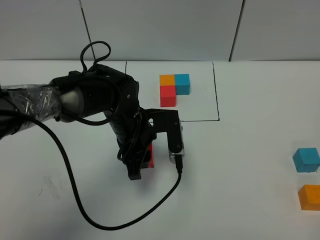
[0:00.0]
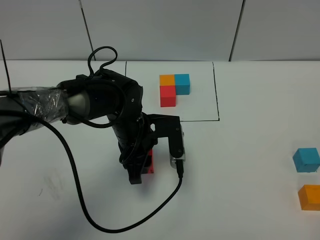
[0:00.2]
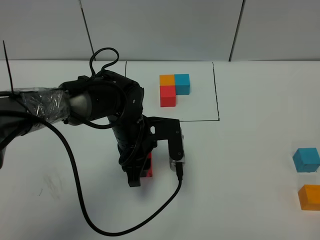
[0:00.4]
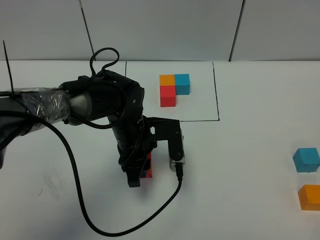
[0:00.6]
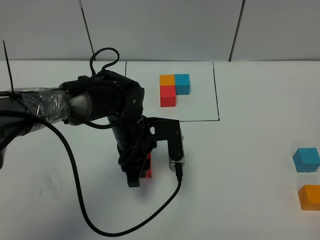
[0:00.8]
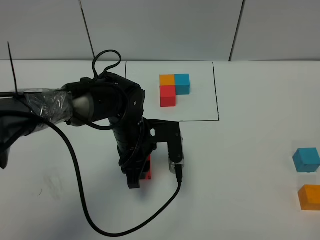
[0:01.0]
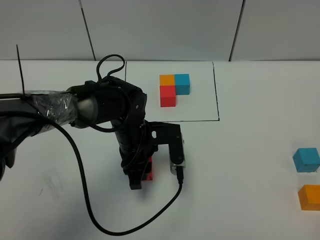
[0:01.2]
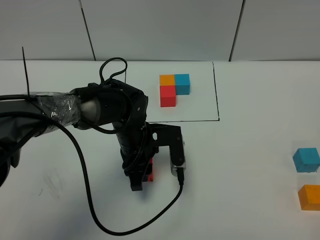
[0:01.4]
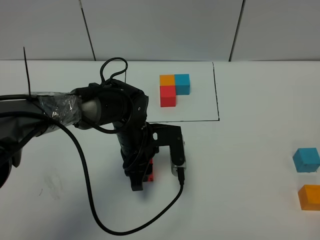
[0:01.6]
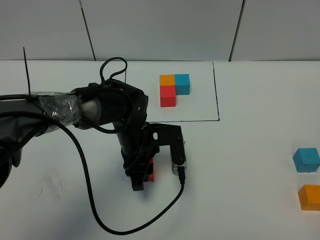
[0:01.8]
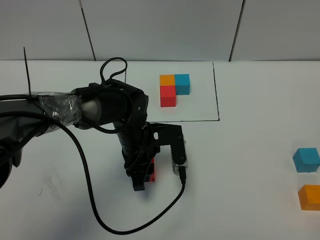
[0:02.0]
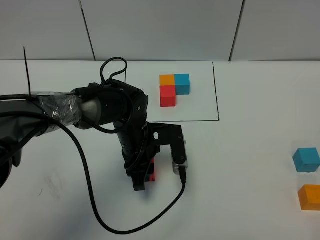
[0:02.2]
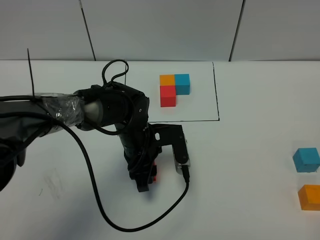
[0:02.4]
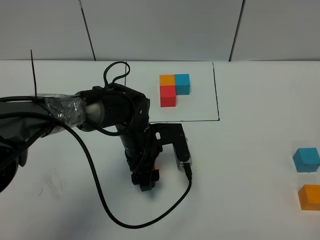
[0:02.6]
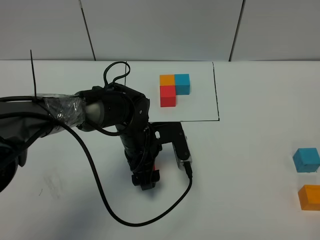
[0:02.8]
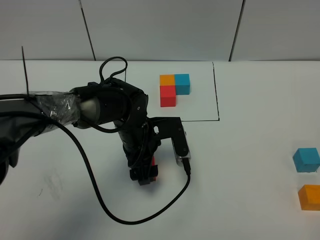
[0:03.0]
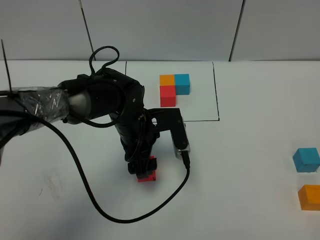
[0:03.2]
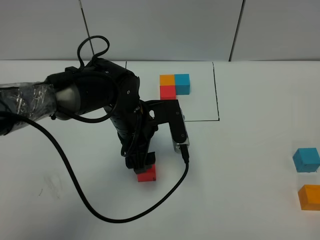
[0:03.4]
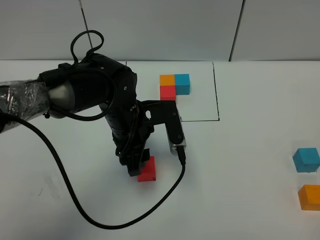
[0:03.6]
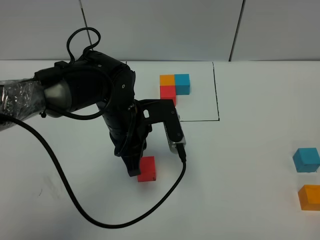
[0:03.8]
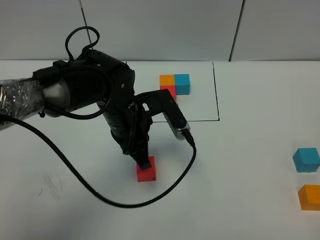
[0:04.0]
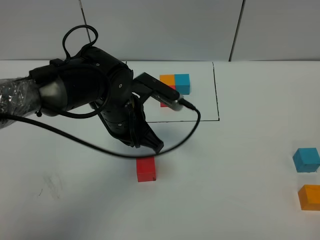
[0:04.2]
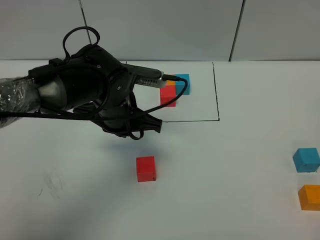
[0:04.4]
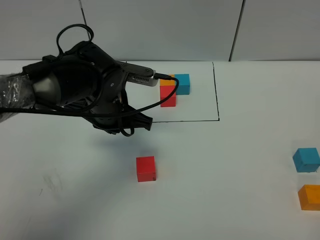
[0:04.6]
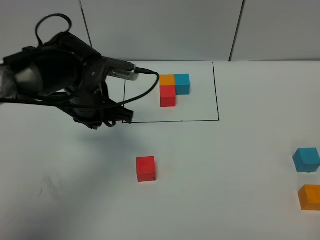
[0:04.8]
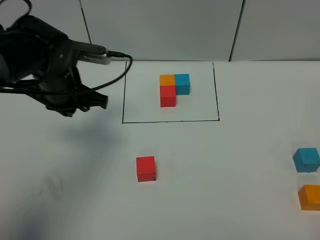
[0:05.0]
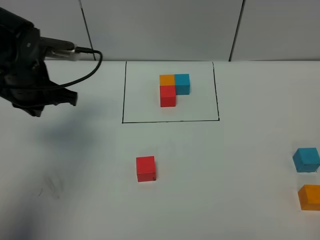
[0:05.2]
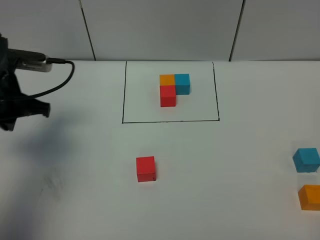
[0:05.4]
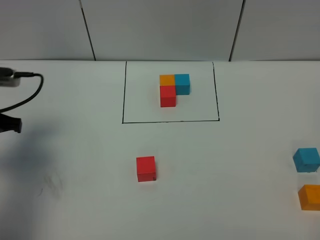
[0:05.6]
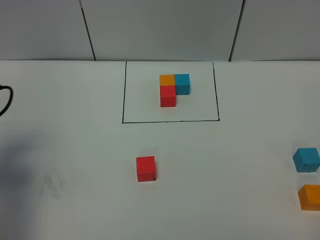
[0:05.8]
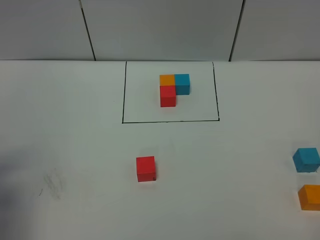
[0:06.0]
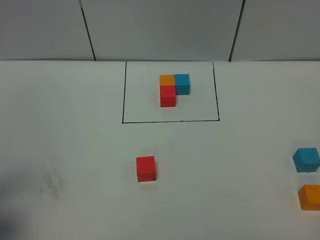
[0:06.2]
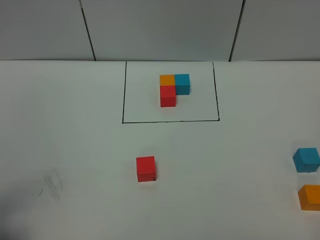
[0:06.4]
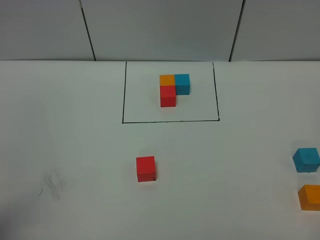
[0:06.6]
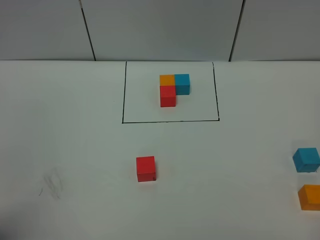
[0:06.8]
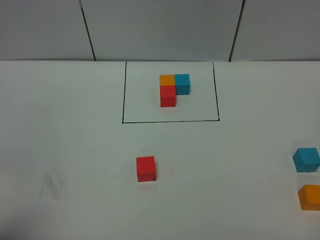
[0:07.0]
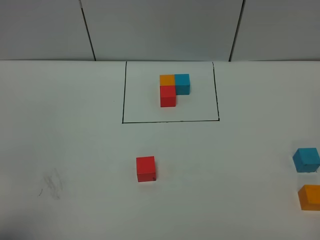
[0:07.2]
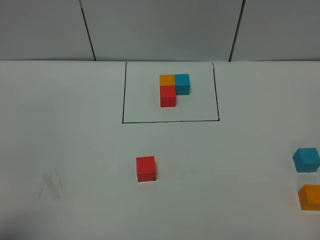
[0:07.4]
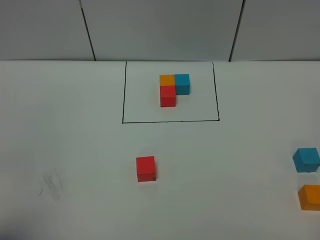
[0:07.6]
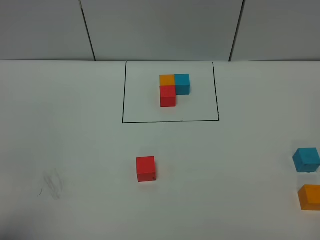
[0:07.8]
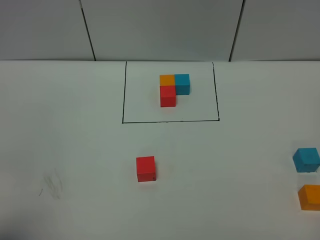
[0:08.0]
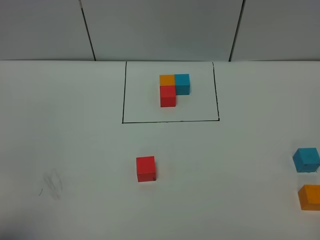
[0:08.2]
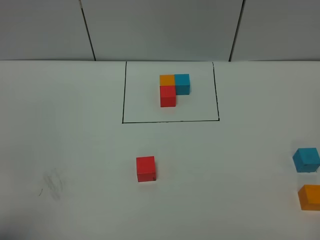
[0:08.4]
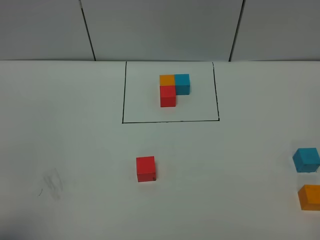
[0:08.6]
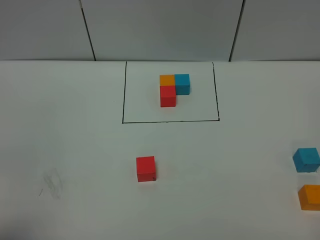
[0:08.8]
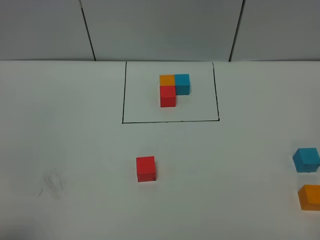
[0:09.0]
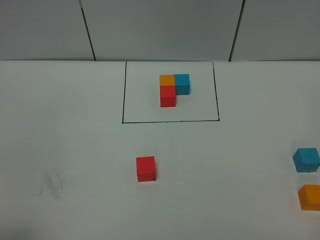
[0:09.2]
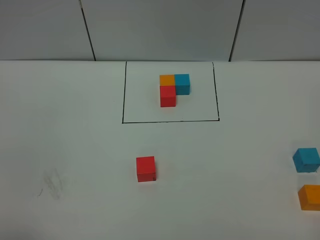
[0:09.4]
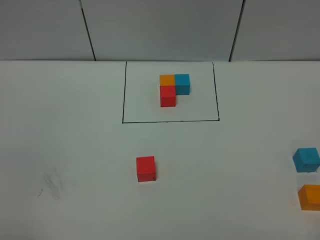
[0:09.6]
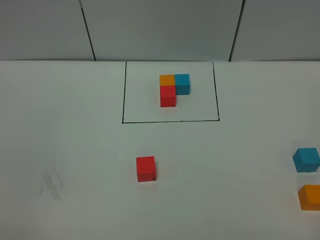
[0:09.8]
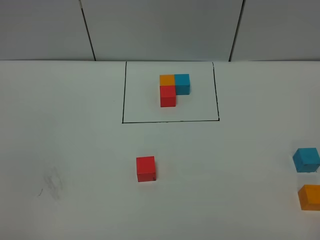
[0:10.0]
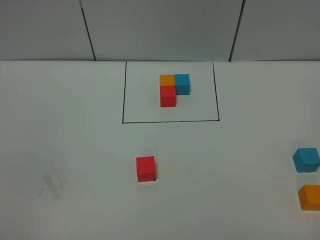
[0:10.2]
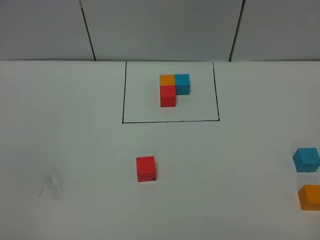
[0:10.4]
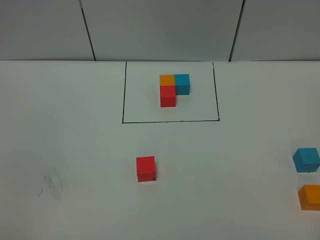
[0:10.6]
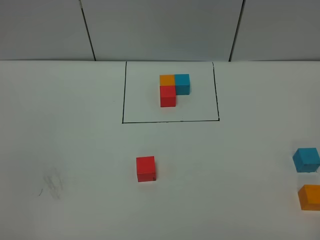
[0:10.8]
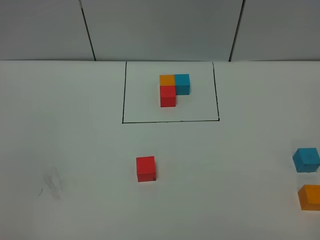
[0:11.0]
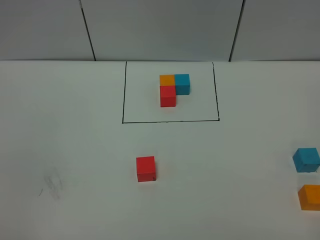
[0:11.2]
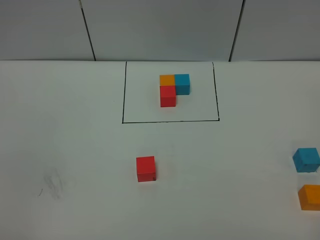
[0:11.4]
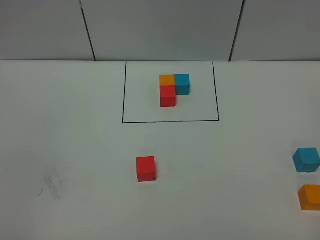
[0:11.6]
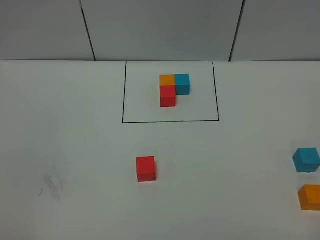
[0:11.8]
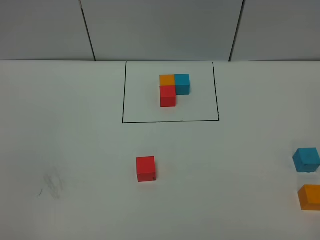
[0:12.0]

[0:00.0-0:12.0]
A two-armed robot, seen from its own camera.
Task of the whole recording: According to the building block template in front, assemble the scattered blocks together.
Step, 0:00.0 to 0:02.8: Put the red cube in the center of the table.
0:00.0 to 0:01.6: The grippers make only small movements.
0:01.6 to 0:03.0: The left gripper opens up.
0:03.0 to 0:04.4: The left gripper is displaced upward by approximately 5 cm, and closes up.
0:04.4 to 0:06.0: The left gripper travels to the left and backward by some 30 cm.
0:06.0 to 0:07.6: The left gripper shifts roughly 15 cm backward.
0:10.4 to 0:12.0: Both grippers stay put.

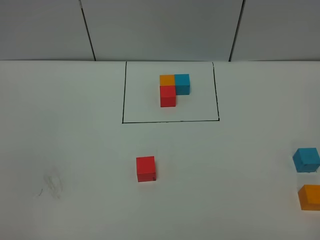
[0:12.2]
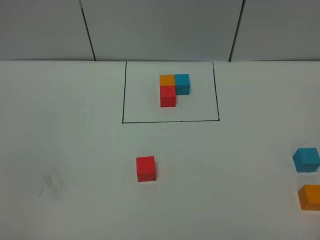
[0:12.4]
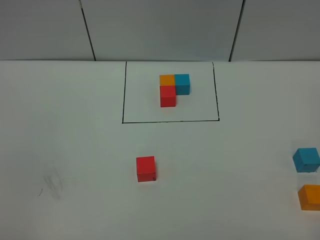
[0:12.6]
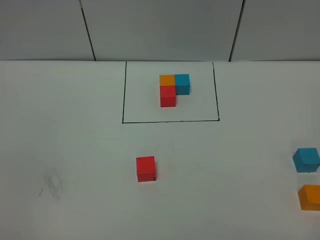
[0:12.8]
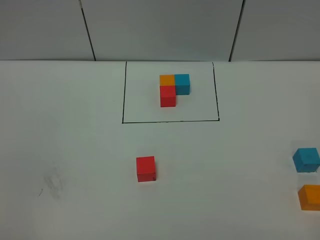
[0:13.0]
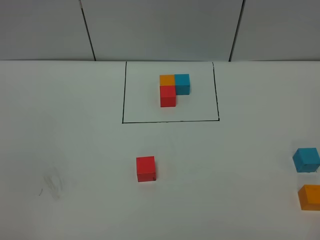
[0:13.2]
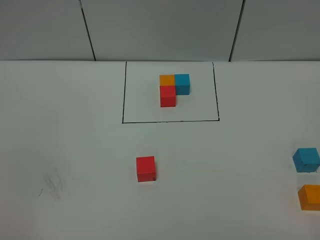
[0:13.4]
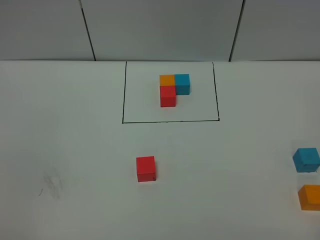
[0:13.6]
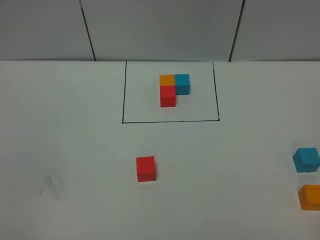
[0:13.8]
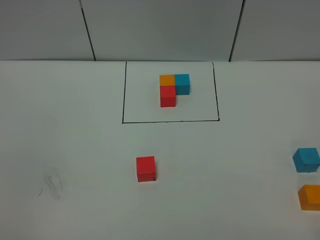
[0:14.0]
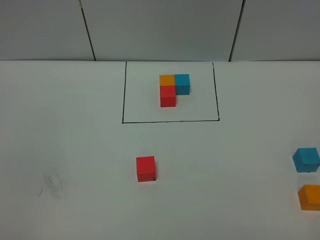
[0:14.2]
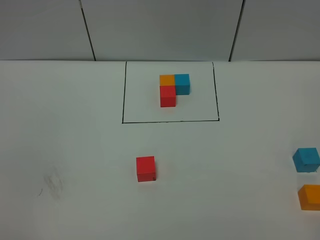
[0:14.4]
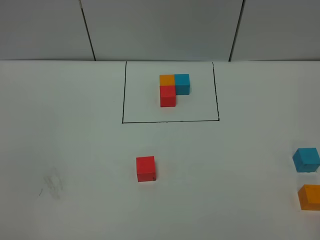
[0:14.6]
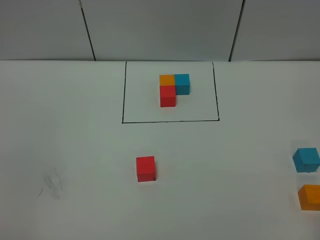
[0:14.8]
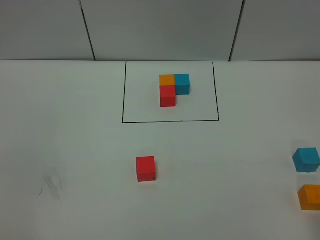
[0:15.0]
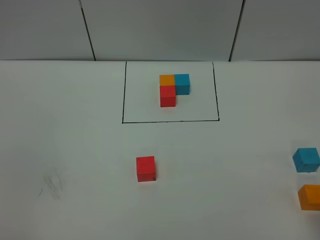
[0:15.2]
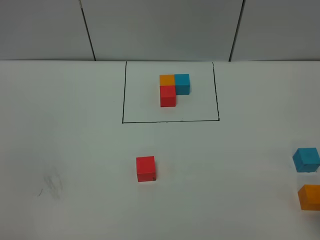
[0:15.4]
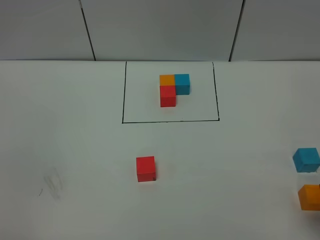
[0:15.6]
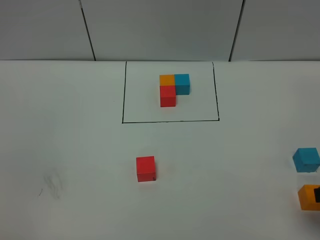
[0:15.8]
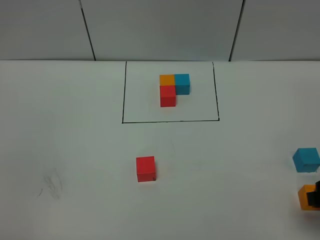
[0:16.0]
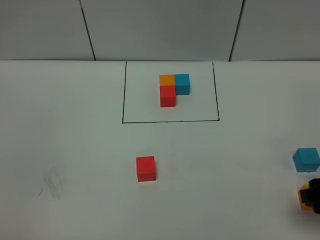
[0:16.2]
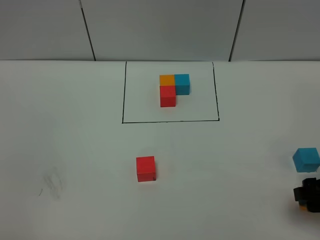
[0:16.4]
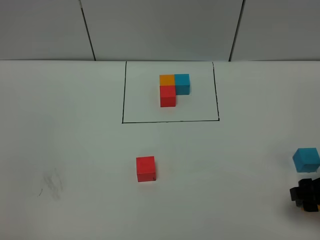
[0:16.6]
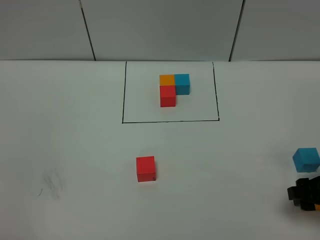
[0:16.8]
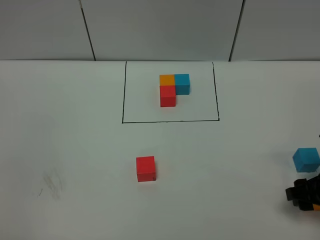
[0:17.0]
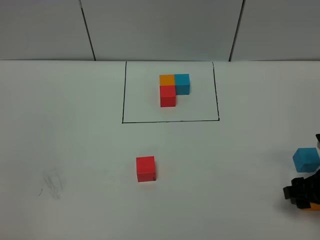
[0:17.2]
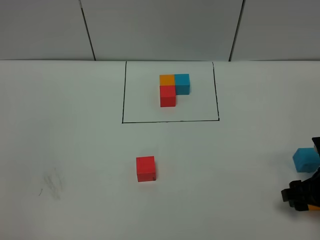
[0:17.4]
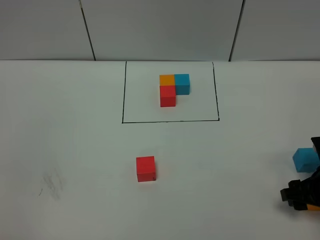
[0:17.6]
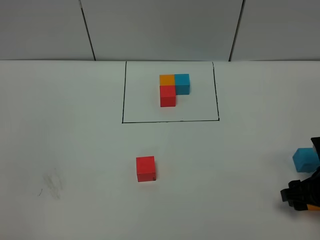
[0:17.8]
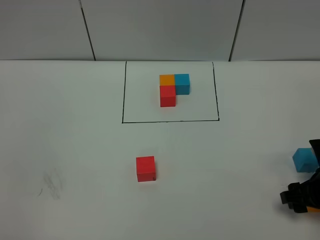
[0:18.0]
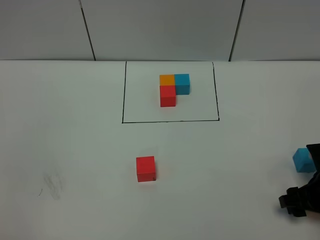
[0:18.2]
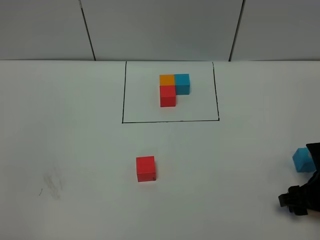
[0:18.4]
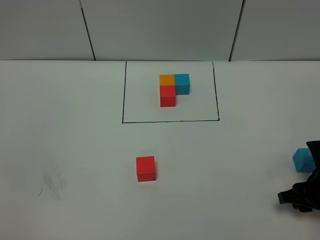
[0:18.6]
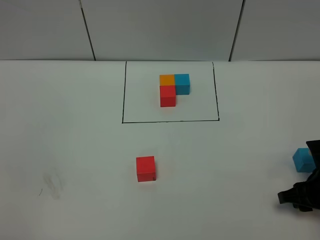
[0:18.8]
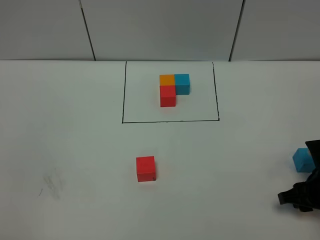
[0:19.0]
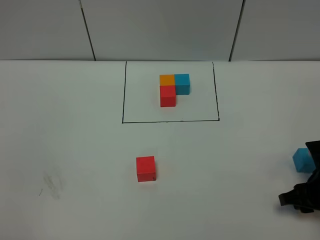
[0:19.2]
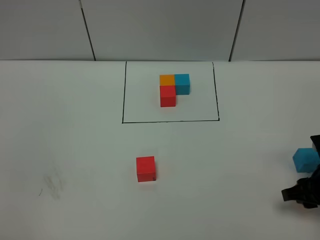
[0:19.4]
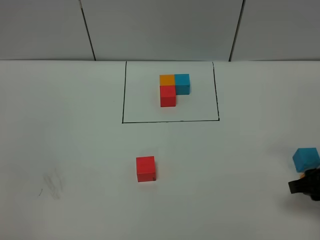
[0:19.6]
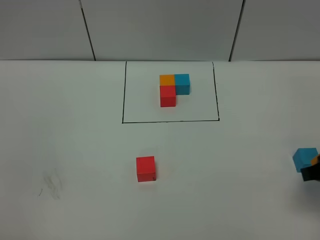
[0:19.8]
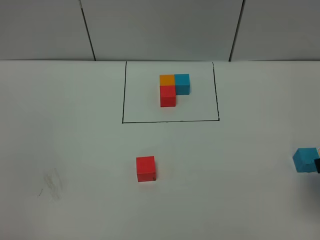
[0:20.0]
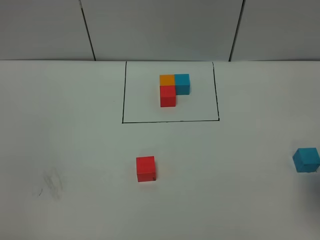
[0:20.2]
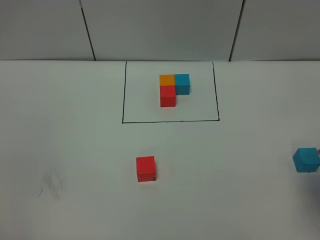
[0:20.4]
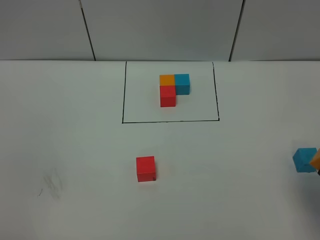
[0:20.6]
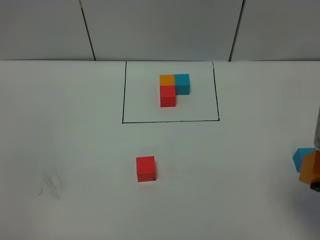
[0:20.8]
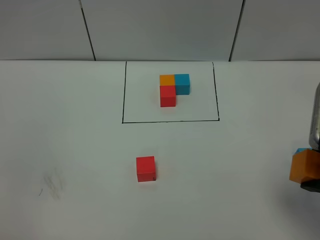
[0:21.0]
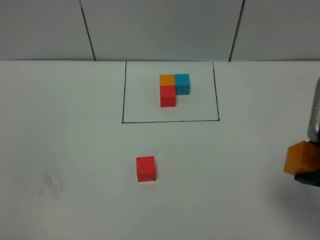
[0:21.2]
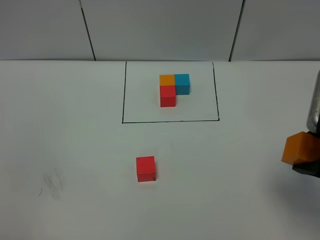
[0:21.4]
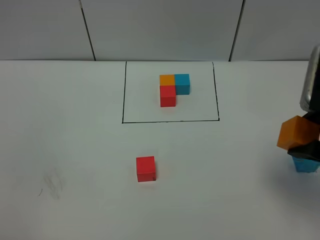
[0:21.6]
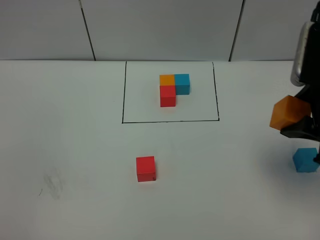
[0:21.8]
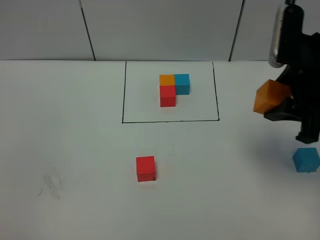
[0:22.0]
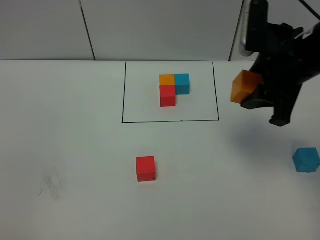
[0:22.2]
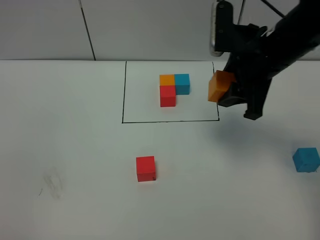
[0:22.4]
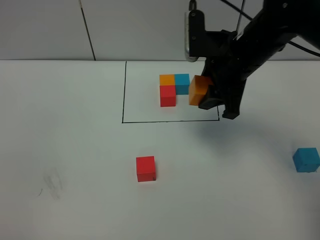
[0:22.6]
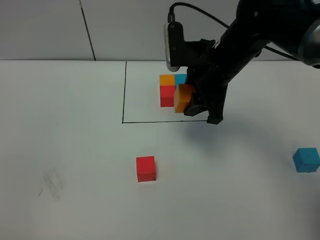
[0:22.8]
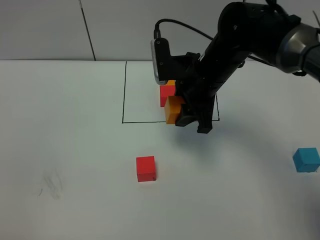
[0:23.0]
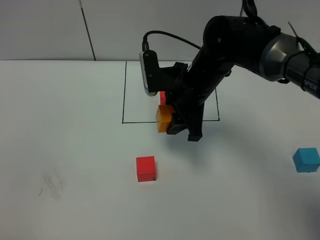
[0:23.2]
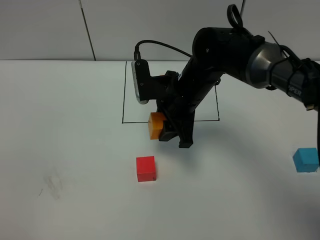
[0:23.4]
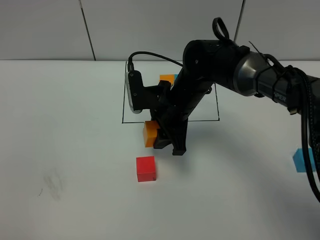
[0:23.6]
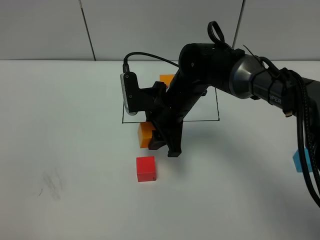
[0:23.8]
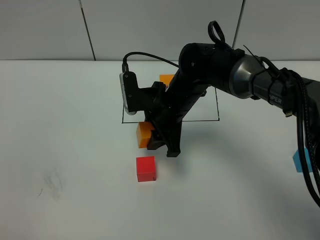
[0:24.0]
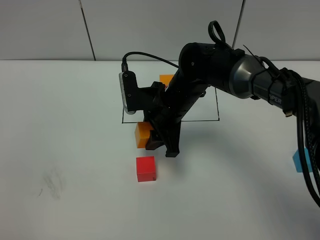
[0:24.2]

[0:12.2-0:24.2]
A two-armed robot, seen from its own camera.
Task of the whole recording: According to the building block template in front, assemble the scattered blocks together.
0:15.2 to 0:16.6: The right gripper heads downward and forward, covering some 15 cm.
0:16.6 to 0:18.2: The right gripper is displaced downward by about 5 cm.
0:18.2 to 0:19.8: The right gripper moves upward, approximately 10 cm.
0:19.8 to 0:21.2: The right gripper shifts approximately 5 cm upward.
0:21.2 to 0:22.6: The right gripper goes about 25 cm forward and to the left.
0:22.6 to 0:24.2: The right gripper travels downward and to the left by roughly 15 cm.
